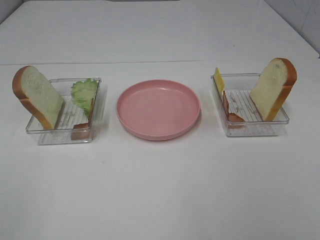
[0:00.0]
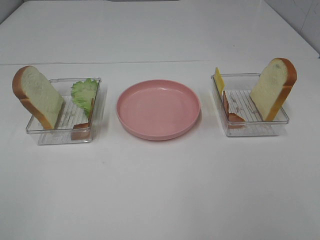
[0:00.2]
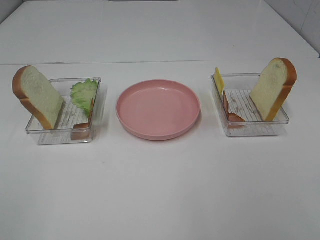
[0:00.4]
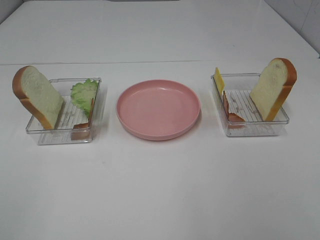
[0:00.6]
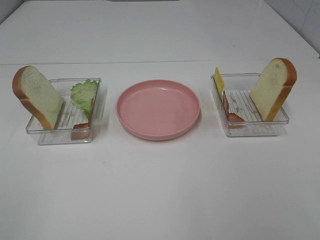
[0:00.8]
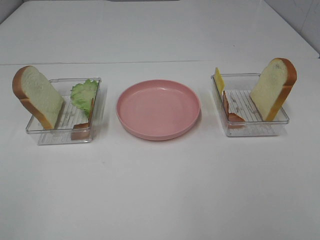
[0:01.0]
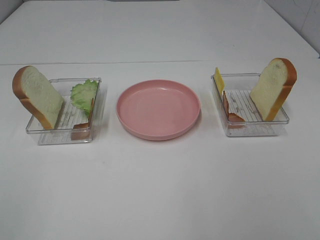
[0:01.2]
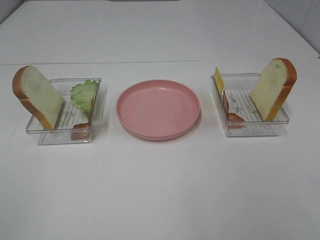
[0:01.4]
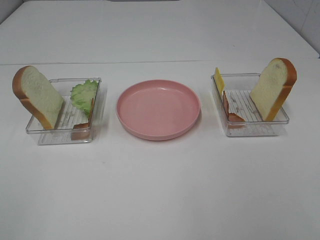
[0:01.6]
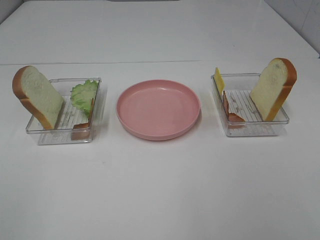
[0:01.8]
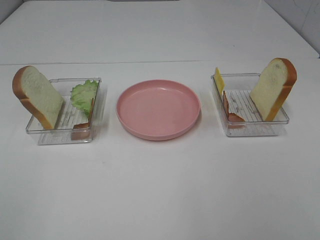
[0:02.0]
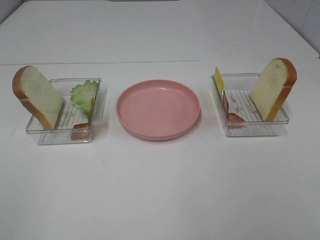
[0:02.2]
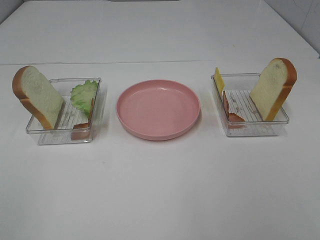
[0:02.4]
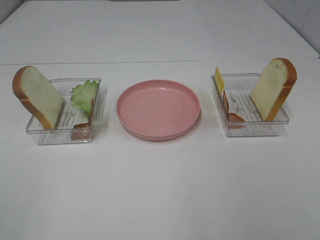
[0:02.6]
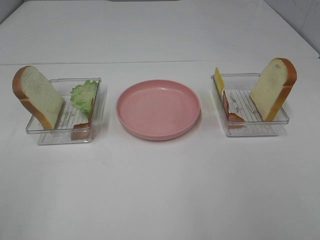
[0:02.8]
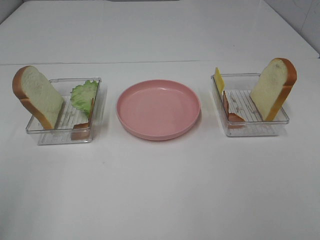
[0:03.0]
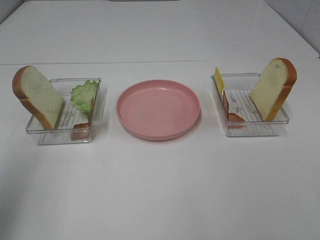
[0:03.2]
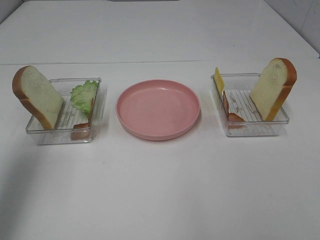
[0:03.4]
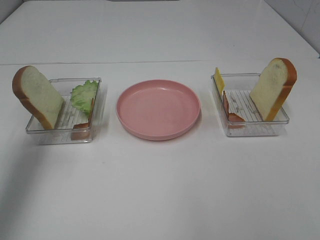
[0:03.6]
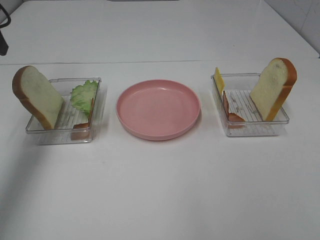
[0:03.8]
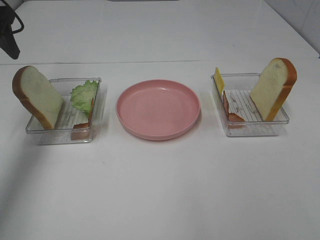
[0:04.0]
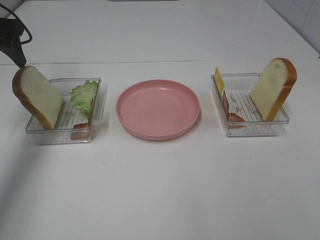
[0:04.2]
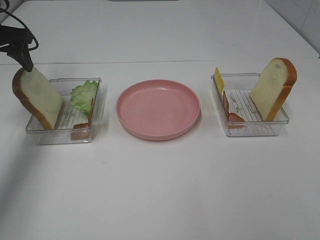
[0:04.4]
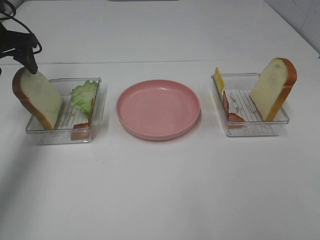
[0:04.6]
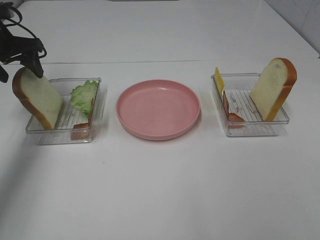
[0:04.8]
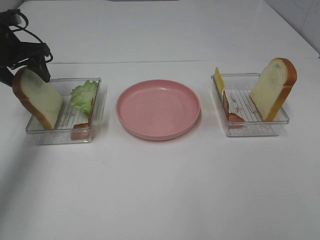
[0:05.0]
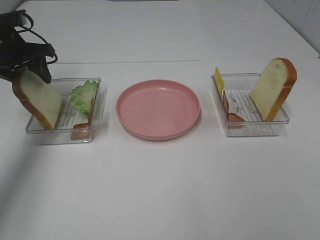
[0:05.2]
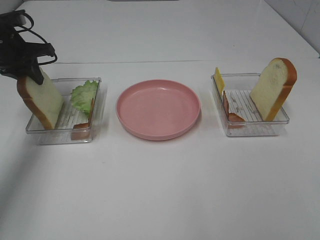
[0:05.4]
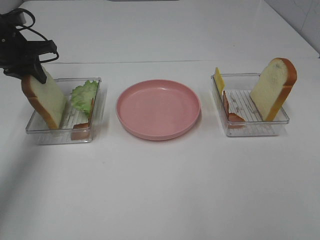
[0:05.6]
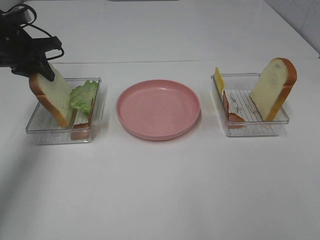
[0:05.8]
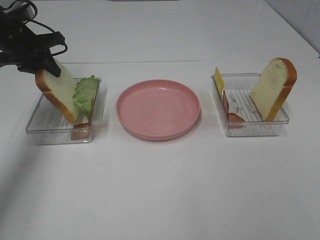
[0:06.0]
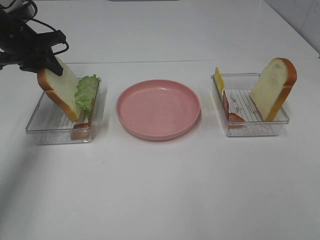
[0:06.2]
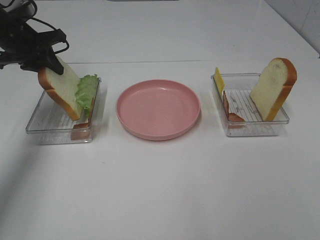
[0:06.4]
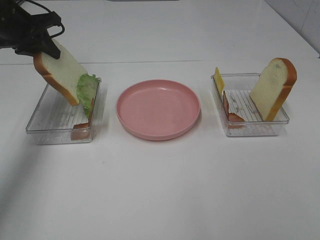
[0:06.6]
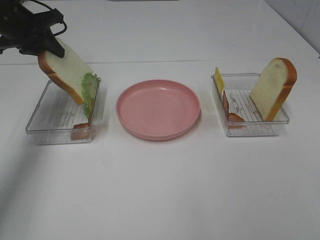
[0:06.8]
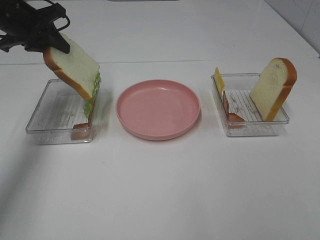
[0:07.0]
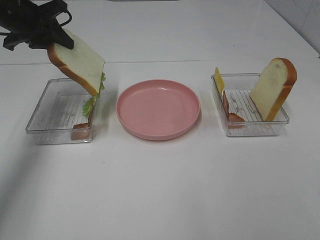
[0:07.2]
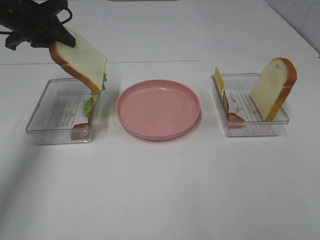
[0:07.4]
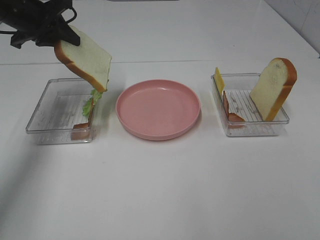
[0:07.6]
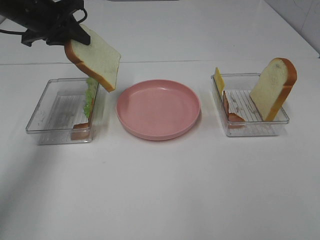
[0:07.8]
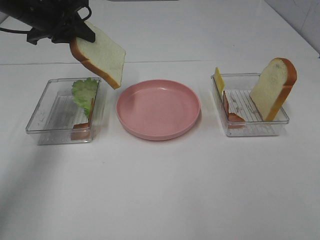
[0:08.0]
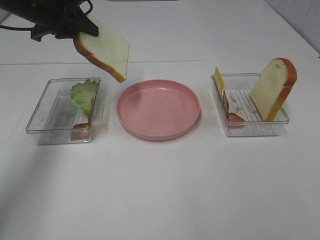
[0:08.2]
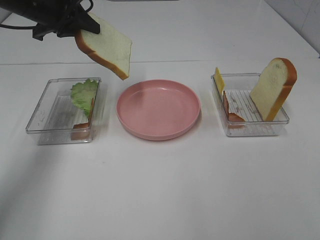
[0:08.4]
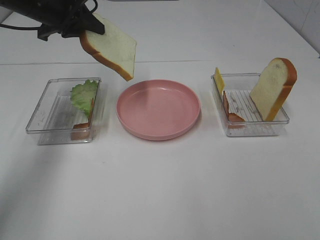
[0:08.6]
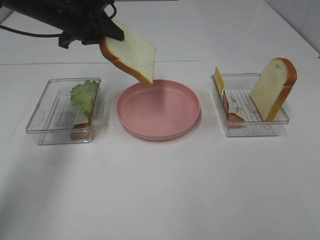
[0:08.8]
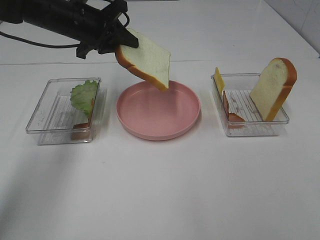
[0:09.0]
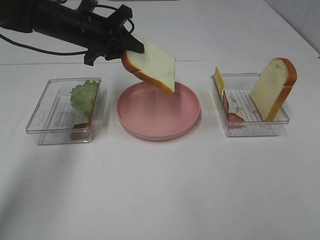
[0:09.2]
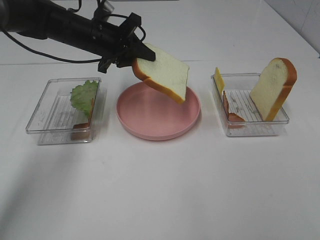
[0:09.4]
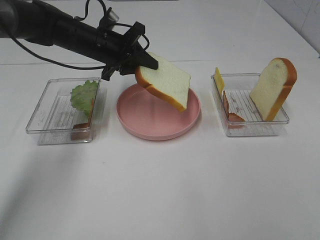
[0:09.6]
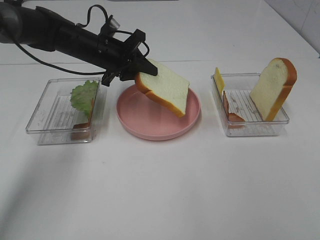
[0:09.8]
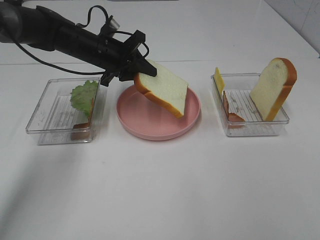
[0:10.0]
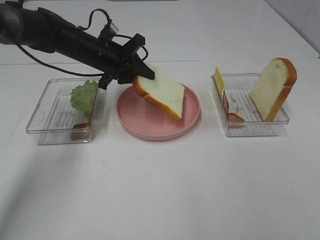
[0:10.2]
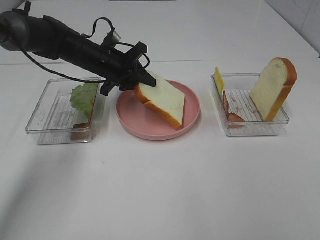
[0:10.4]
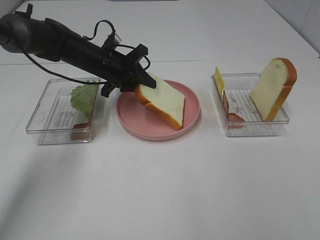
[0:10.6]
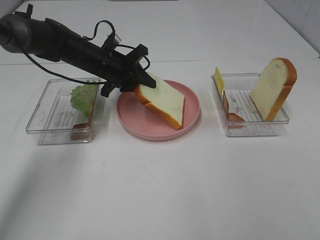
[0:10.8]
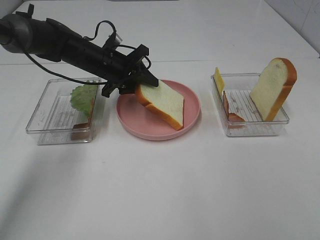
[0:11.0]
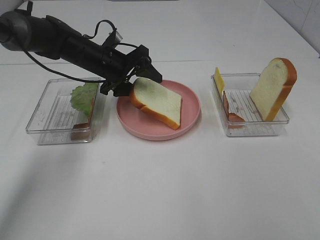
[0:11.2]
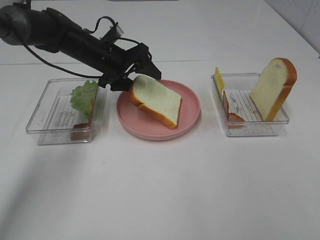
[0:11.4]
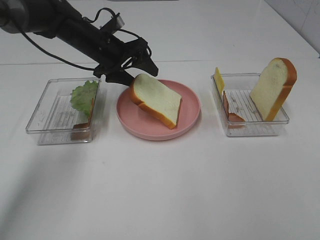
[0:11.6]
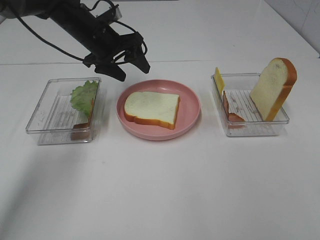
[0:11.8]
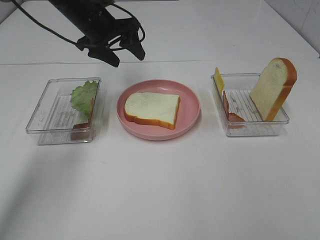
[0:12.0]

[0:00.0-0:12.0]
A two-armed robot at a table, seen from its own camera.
Task of the whole recording: Make sandwiches.
Step, 0:00.0 to 0:05.6: Left hand:grab the bread slice.
Step, 0:05.8 to 0:11.8: Left hand:place the bread slice on the plate.
0:00.0 to 0:01.6: Both grippers stay put.
0:03.0 to 0:04.4: The left gripper goes some 35 cm forward.
0:04.4 to 0:06.0: The left gripper shifts by roughly 5 cm, and closes.
0:06.0 to 0:07.6: The left gripper ends up approximately 5 cm from where it was.
0:07.6 to 0:09.0: The left gripper shifts approximately 10 cm to the right.
0:09.0 to 0:10.4: The left gripper travels downward by about 10 cm.
0:10.4 to 0:12.0: The left gripper heads upward, covering some 10 cm, and opens up.

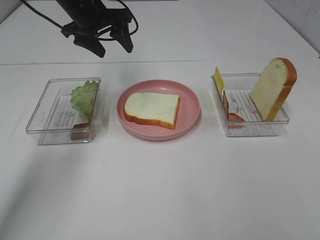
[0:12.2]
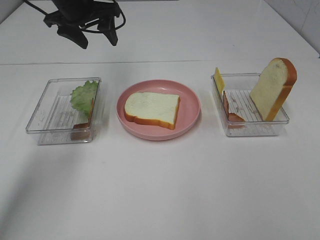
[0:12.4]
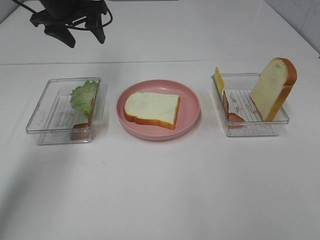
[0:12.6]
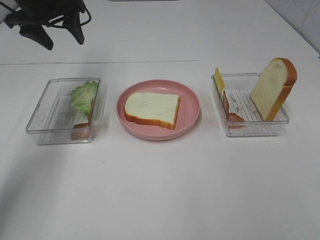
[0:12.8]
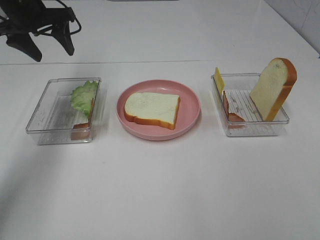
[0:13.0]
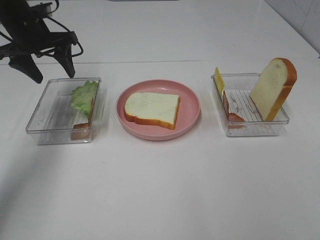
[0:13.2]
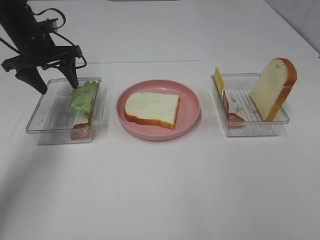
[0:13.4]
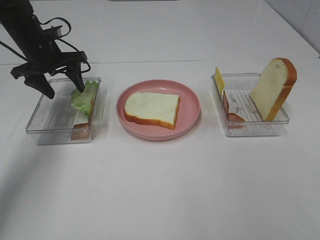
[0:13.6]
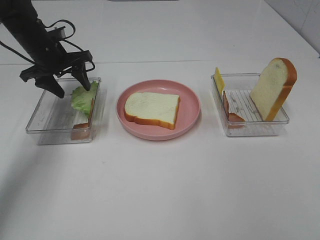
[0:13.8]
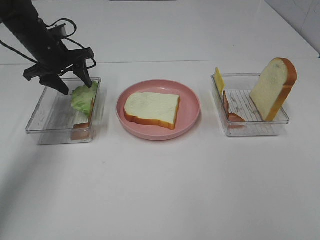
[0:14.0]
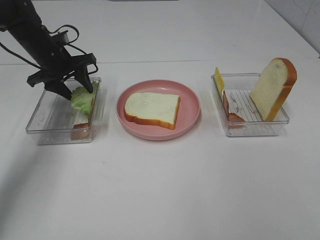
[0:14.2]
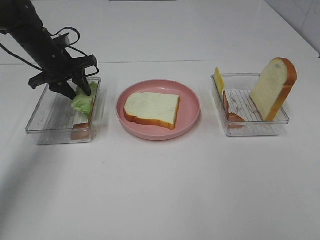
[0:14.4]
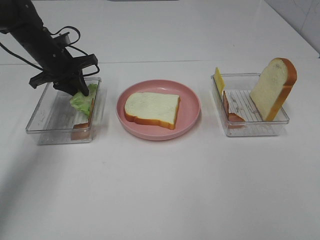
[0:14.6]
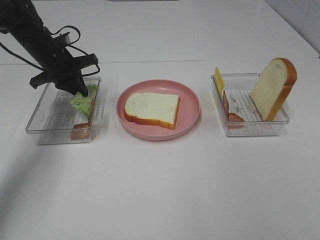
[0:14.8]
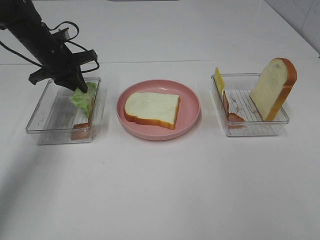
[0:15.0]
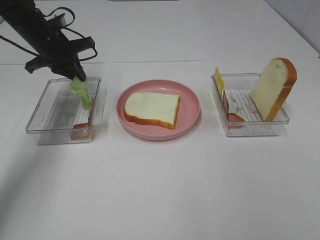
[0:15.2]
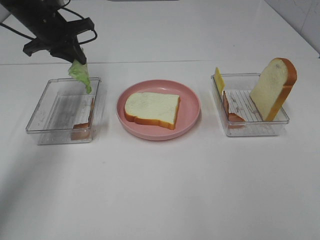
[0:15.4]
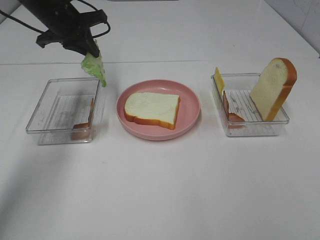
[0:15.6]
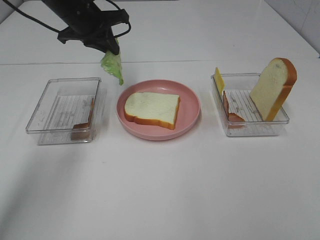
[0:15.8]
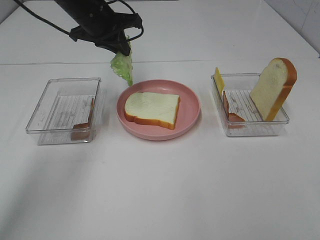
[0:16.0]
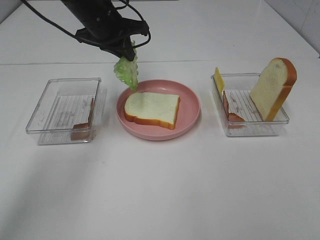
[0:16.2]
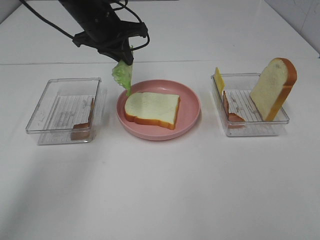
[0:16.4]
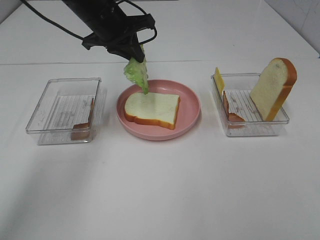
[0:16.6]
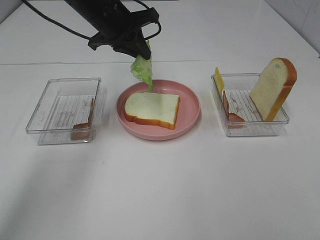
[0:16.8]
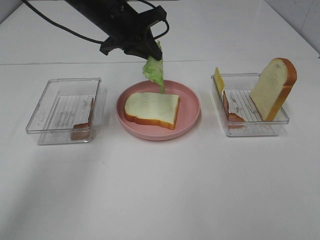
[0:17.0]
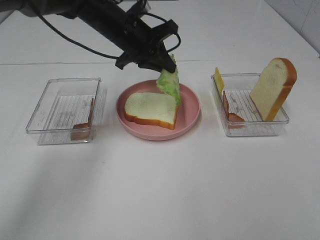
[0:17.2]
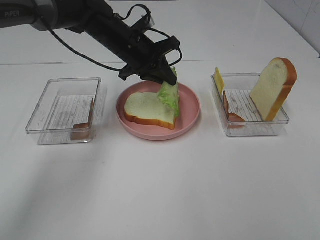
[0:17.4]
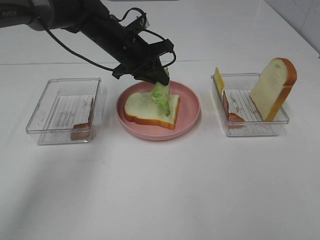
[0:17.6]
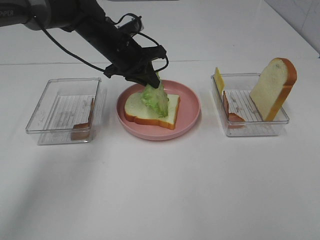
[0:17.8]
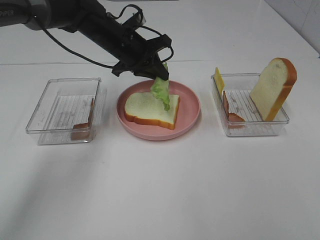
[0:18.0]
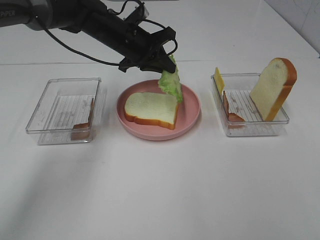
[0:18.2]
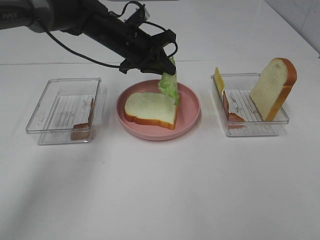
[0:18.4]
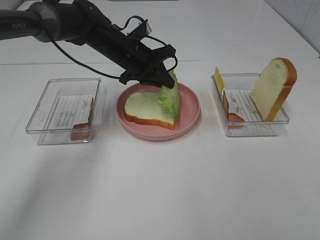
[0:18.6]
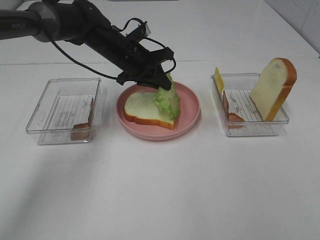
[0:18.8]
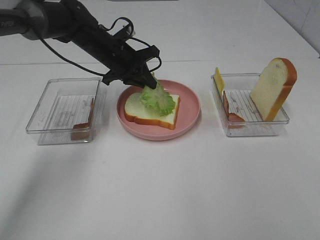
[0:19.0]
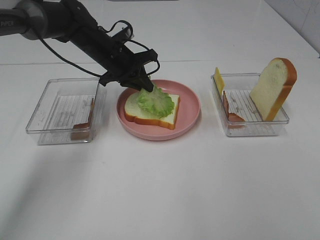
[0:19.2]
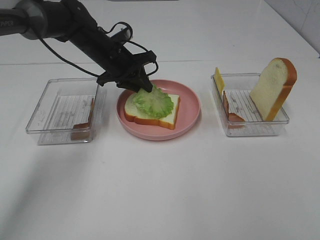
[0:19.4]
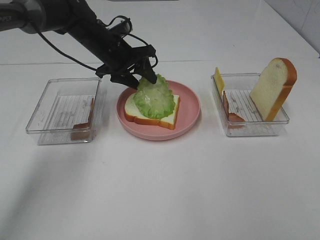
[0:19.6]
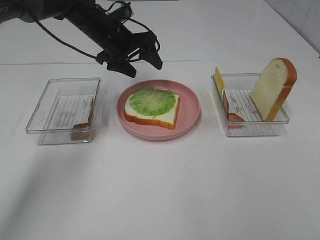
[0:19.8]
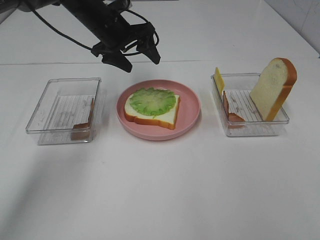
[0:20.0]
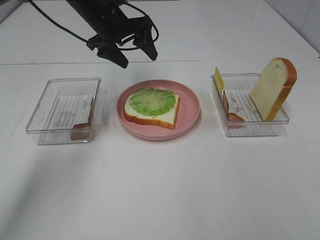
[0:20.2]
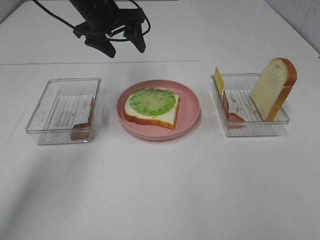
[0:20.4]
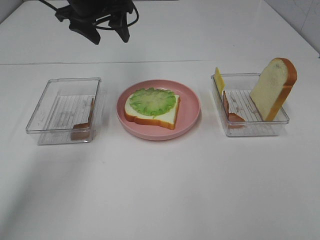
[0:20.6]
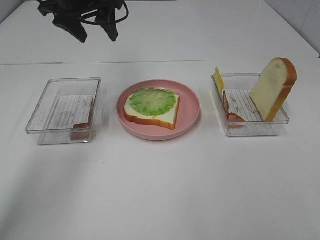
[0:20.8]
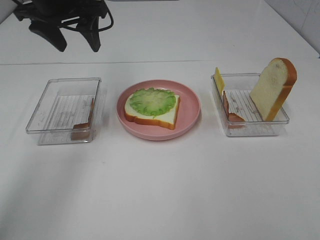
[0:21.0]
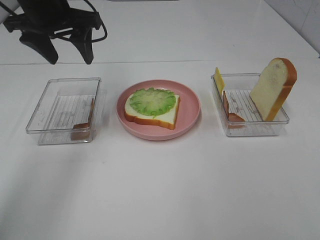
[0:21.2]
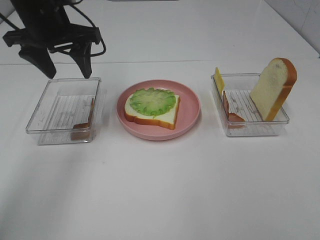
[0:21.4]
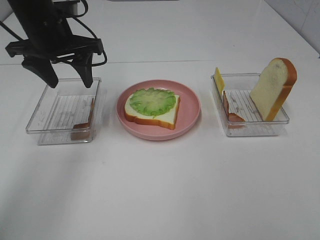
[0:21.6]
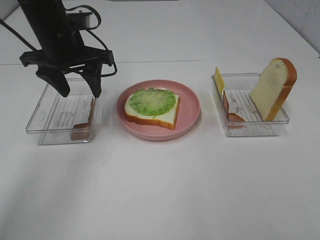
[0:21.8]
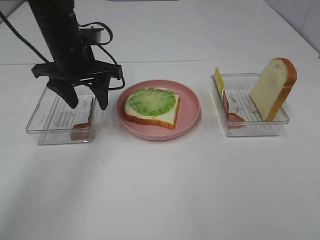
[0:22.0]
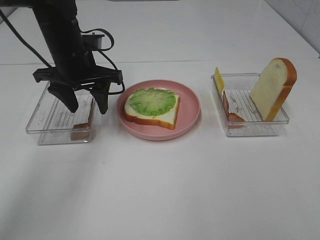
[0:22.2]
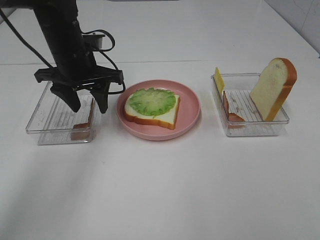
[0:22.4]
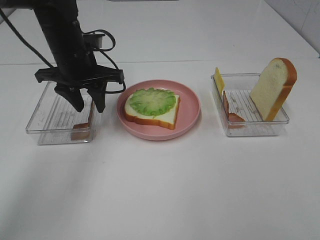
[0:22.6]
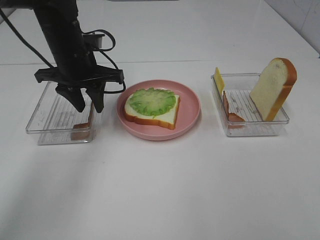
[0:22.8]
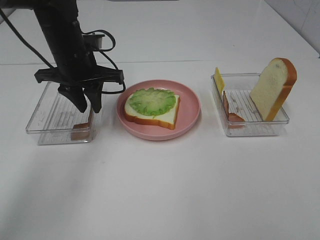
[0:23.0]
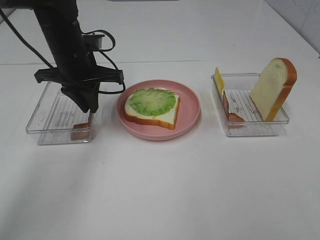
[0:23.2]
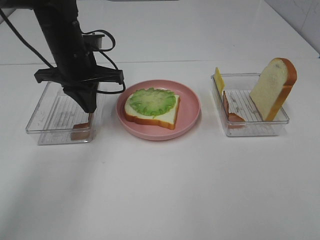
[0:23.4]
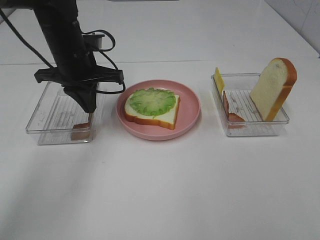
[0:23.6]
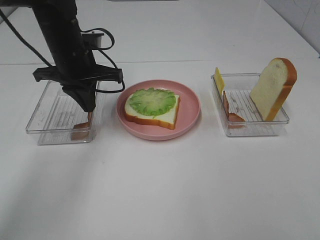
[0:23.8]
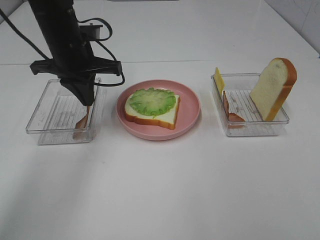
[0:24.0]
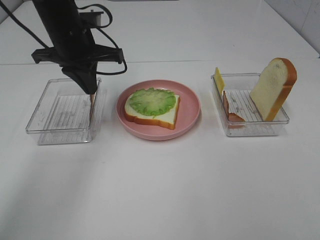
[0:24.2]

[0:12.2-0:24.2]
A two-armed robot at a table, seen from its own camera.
Task of the whole recording: Make sandwiches.
Step, 0:12.2 to 0:15.0: Left hand:grab the lettuce slice.
Step, 0:15.2 to 0:19.8: Left hand:place the lettuce slice on the bread slice.
Step, 0:20.0 to 0:24.2: Left hand:grab the bacon.
0:12.2 to 0:13.8: The left gripper goes roughly 15 cm to the left and downward.
0:13.8 to 0:15.2: The left gripper closes its fingers.
0:15.2 to 0:16.6: The left gripper heads to the right and upward, covering roughly 15 cm.
0:16.6 to 0:18.2: The left gripper moves downward, some 5 cm.
0:18.2 to 0:19.8: The left gripper opens.
0:19.8 to 0:21.2: The left gripper is displaced upward, backward and to the left by some 15 cm.
0:21.2 to 0:22.6: The left gripper moves downward, approximately 10 cm.
0:22.6 to 0:24.2: The left gripper closes up.
